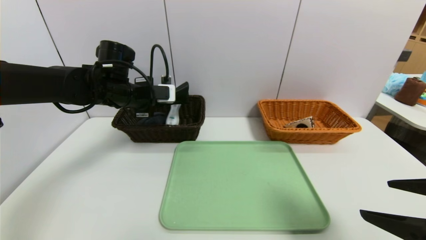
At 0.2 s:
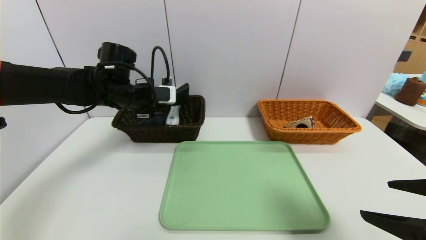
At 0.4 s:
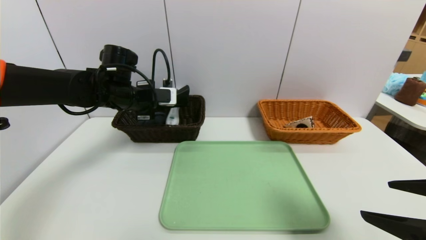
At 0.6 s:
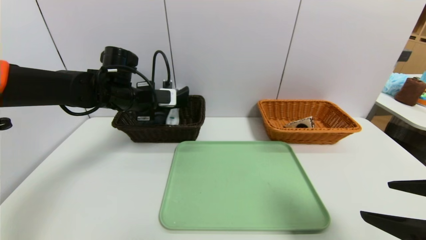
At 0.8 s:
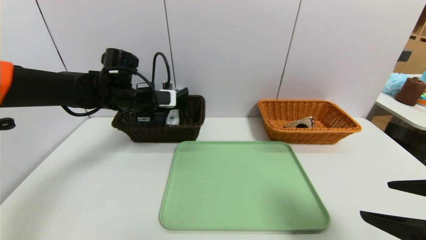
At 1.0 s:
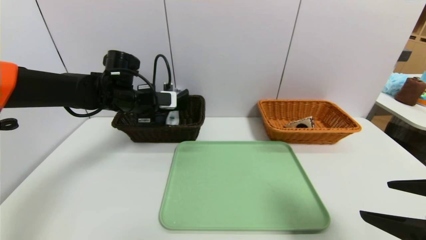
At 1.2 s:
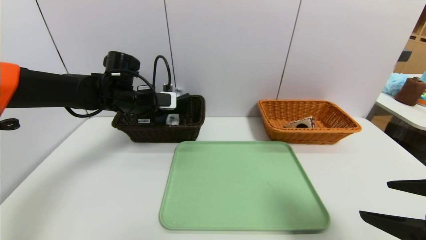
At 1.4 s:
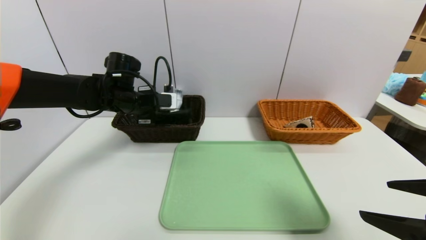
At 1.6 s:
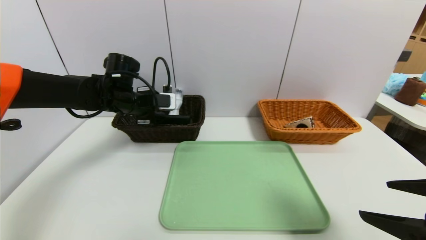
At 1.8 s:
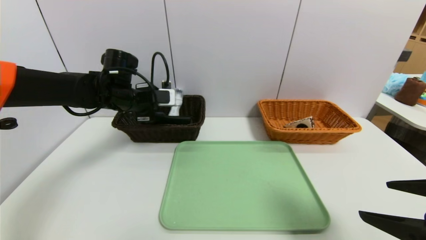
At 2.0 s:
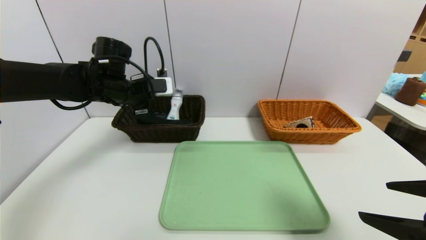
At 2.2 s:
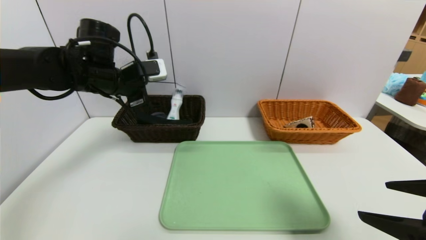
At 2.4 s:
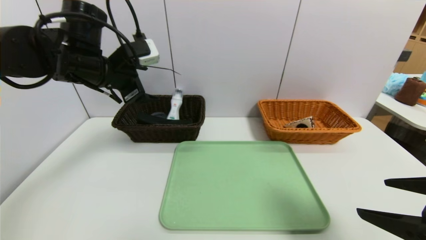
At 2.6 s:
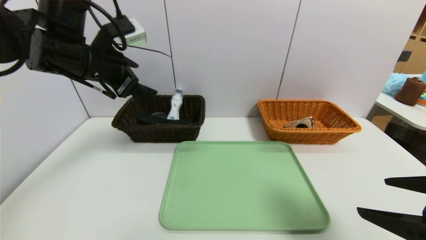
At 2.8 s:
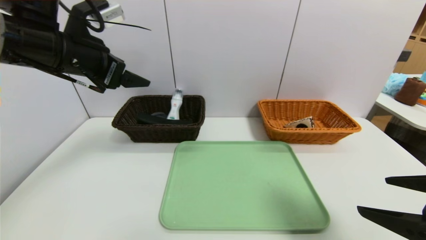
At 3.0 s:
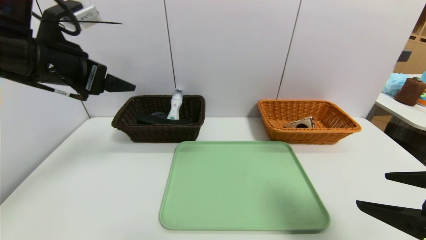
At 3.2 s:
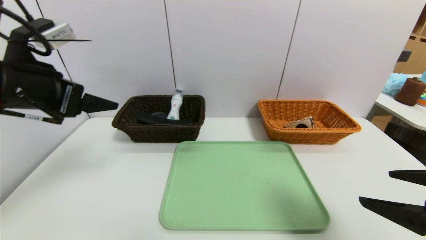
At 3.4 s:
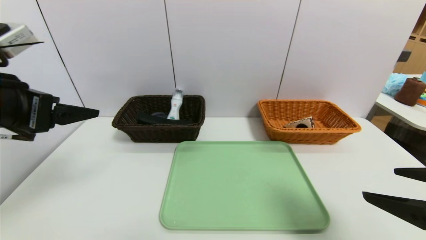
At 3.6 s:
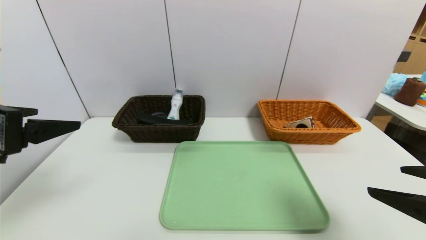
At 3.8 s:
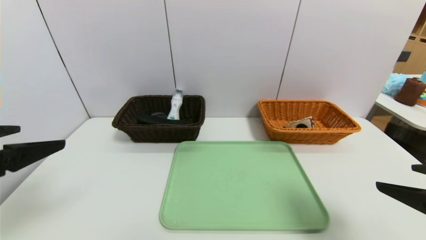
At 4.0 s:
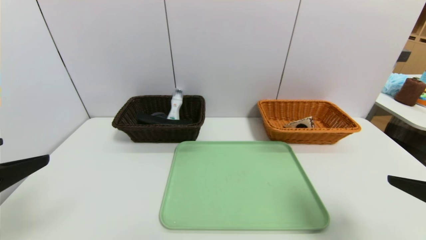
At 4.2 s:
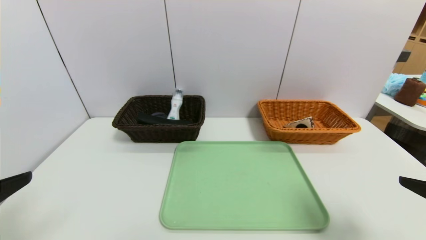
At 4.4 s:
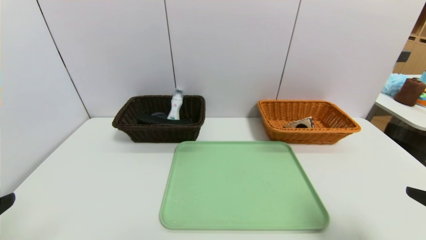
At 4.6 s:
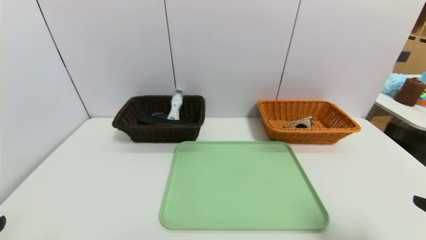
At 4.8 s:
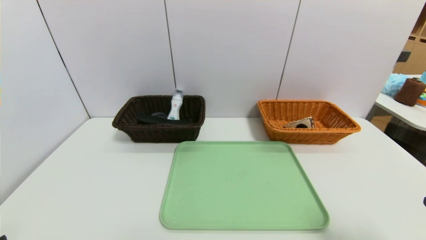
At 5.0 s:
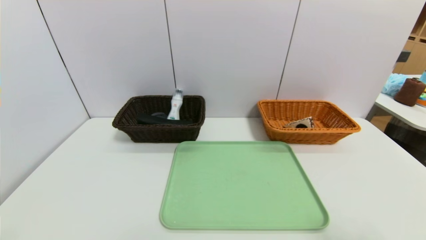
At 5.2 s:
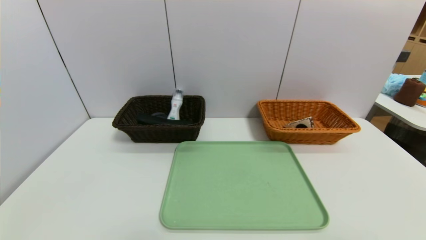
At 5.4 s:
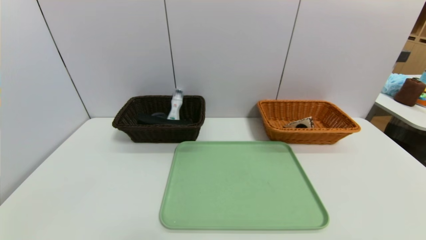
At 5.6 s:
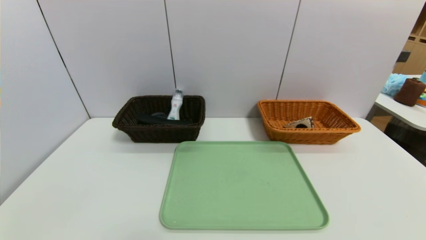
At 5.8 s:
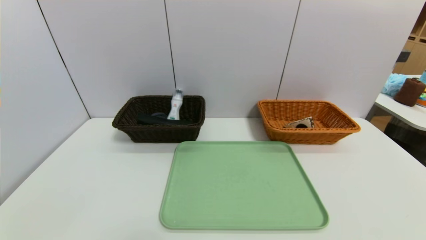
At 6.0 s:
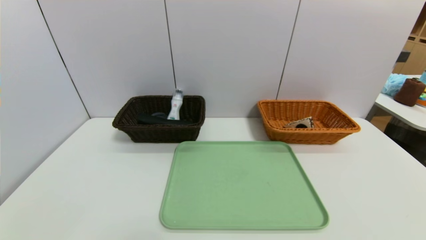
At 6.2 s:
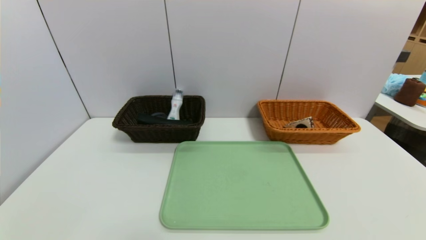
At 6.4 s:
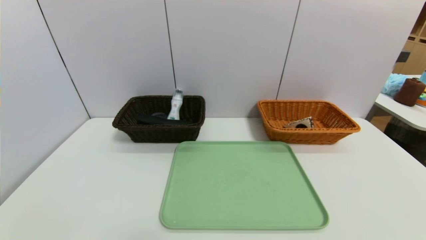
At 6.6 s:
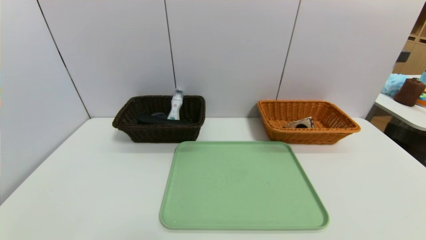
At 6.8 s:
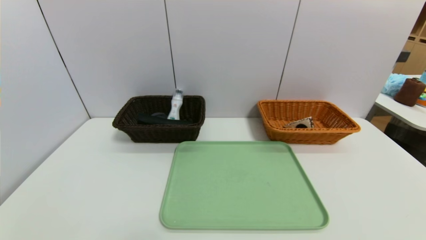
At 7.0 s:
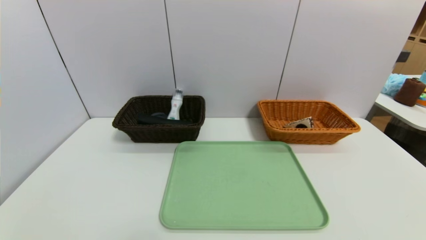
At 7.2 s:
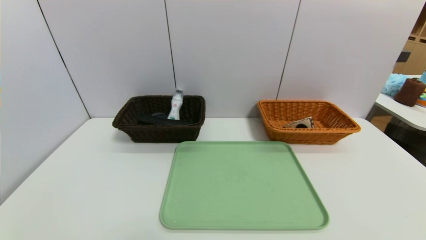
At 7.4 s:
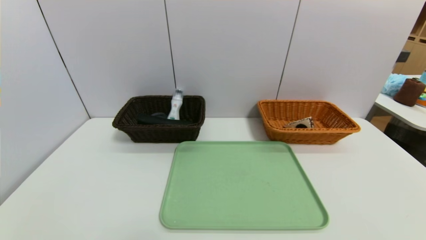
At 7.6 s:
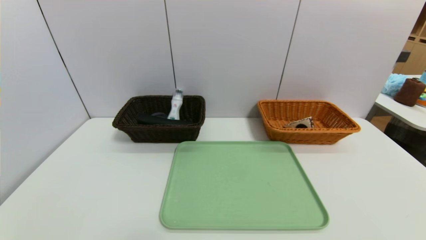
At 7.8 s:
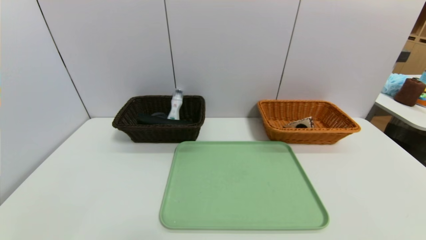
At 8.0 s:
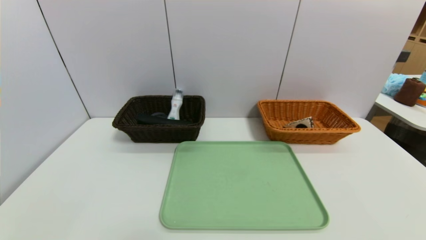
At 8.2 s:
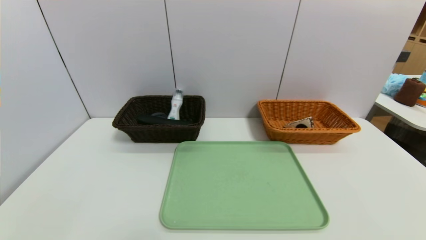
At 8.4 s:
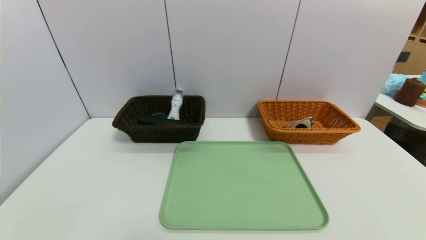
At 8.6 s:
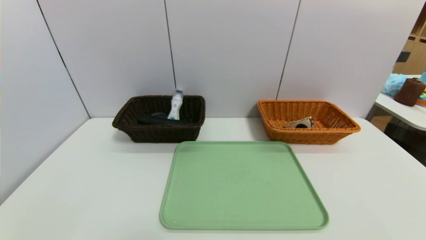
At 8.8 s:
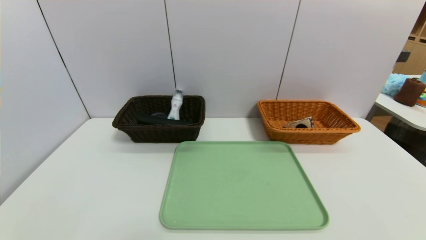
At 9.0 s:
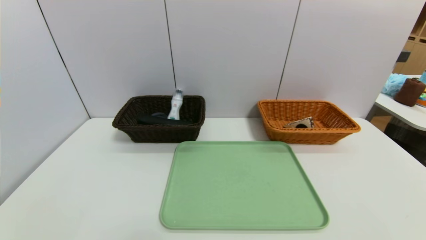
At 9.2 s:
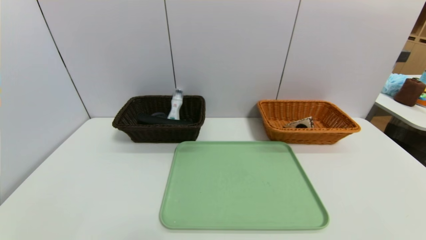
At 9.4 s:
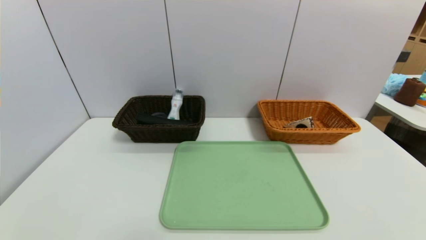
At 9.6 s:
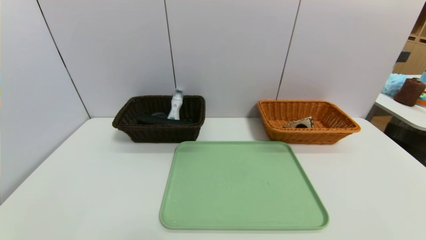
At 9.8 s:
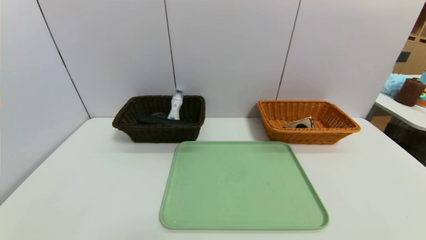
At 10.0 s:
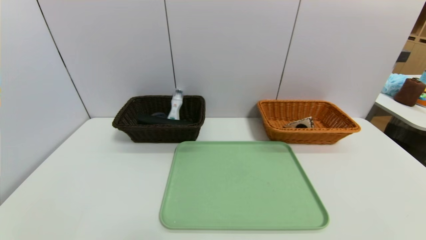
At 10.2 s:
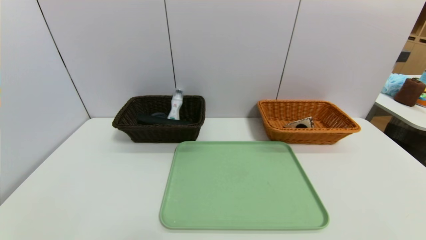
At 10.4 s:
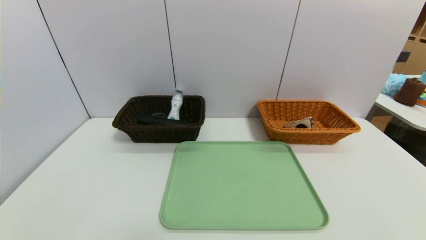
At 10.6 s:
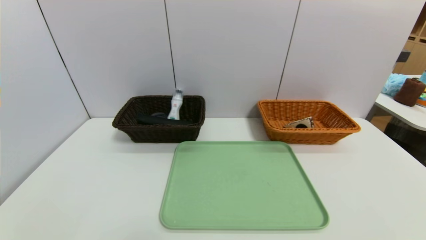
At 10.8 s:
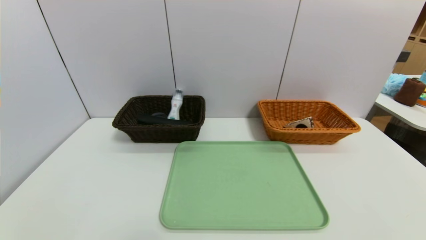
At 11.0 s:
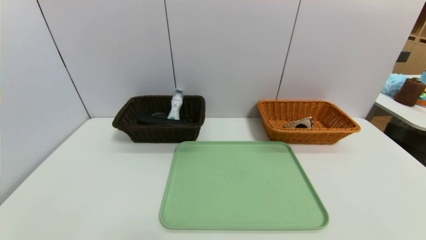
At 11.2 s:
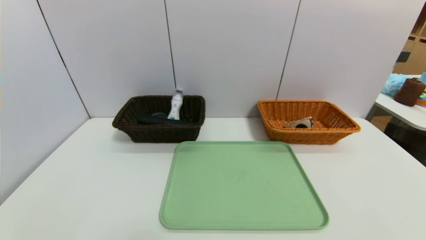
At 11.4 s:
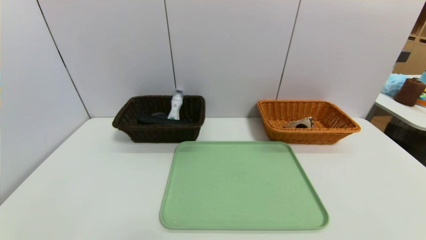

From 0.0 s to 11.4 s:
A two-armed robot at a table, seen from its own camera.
Task of the whole recording: place the food in the right basket with the right gripper, and place the non food items in the left basket with the left gripper.
Step, from 0.0 s to 2.0 s: Grasp the glasses case and put it in the left basket.
From 0.0 s to 1.4 s: The left gripper opens its fingers.
From 1.4 s to 2.8 s: The left gripper heads upward and backward, covering some 15 cm, and opens its fingers.
From 2.8 s to 4.2 s: The left gripper shifts some 25 cm backward.
From 4.2 s to 5.6 s: The right gripper travels backward and downward by roughly 15 cm. The left gripper goes roughly 15 cm downward and backward.
From 10.0 s to 11.4 s: Both grippers stay put.
